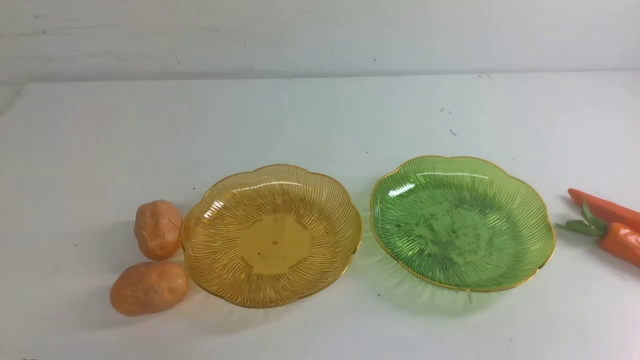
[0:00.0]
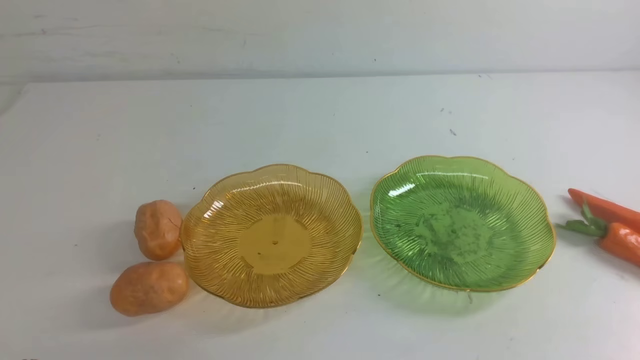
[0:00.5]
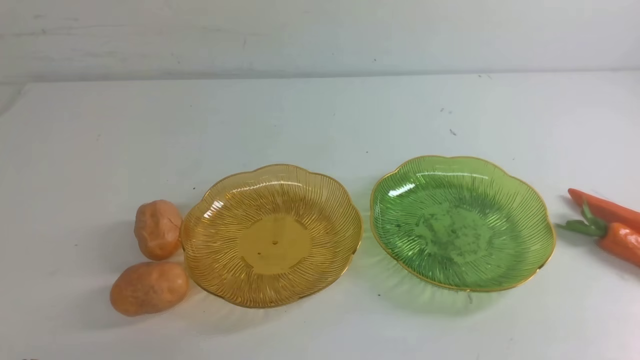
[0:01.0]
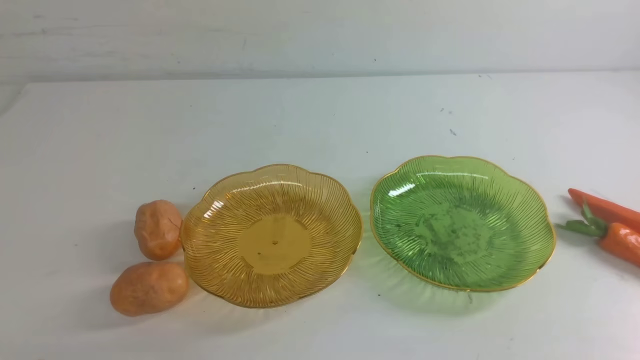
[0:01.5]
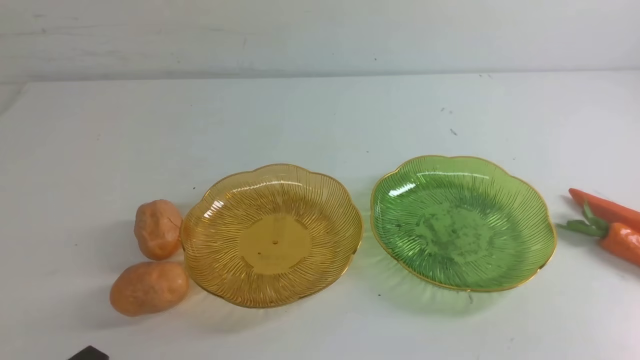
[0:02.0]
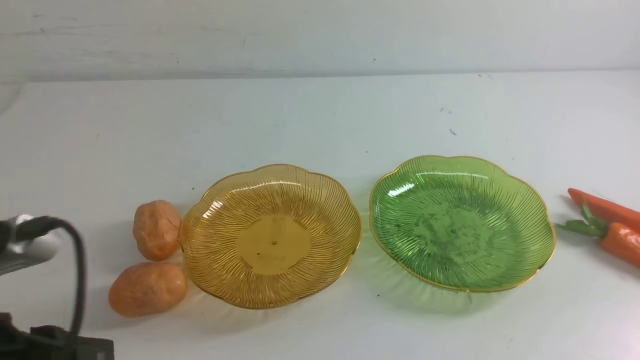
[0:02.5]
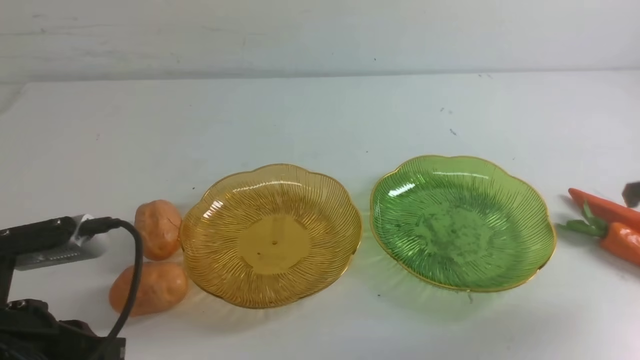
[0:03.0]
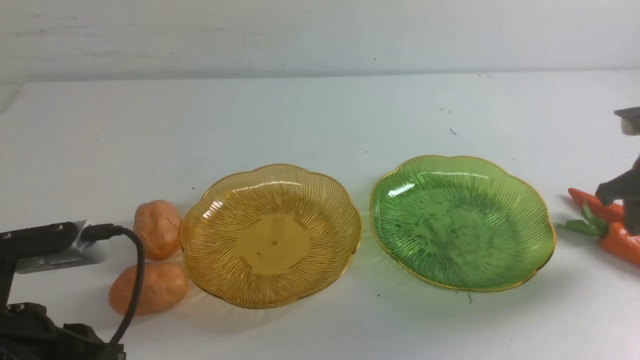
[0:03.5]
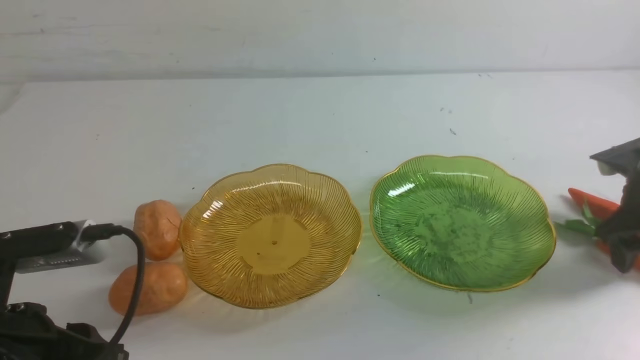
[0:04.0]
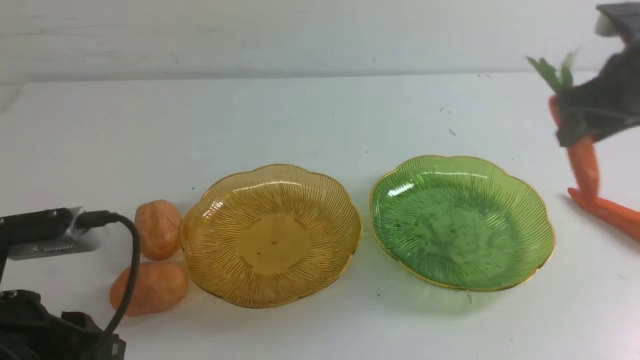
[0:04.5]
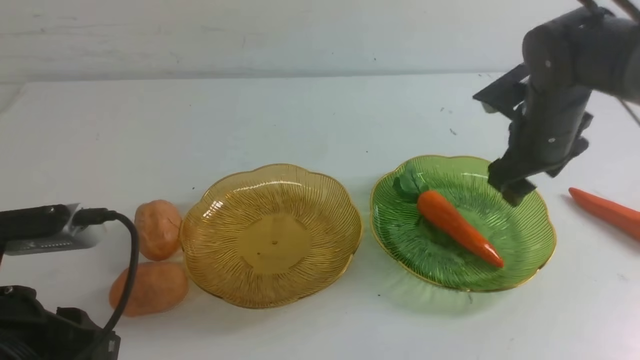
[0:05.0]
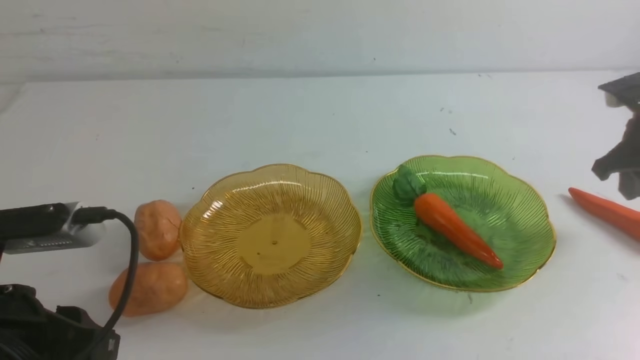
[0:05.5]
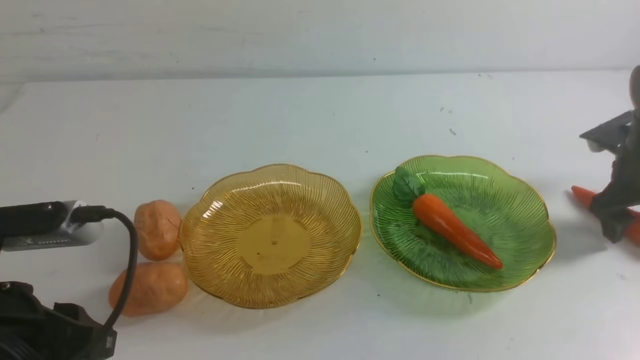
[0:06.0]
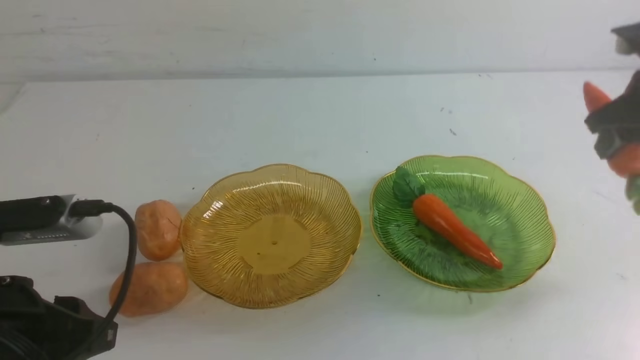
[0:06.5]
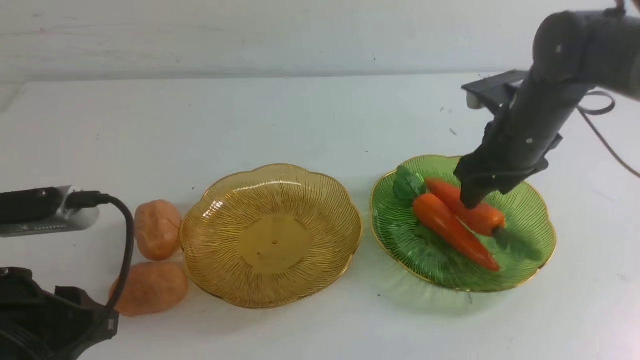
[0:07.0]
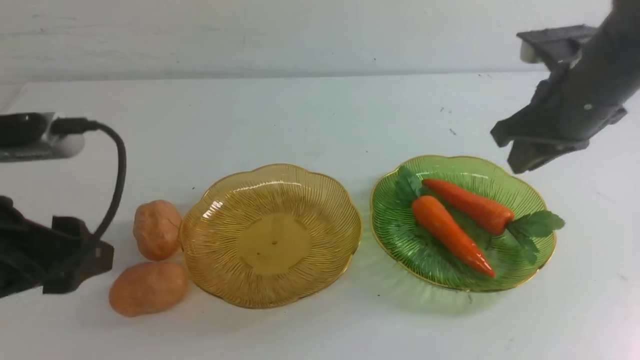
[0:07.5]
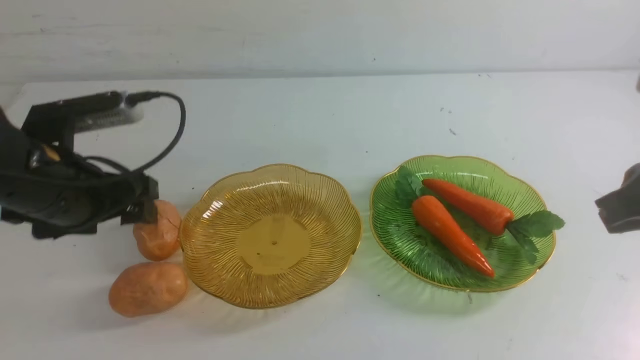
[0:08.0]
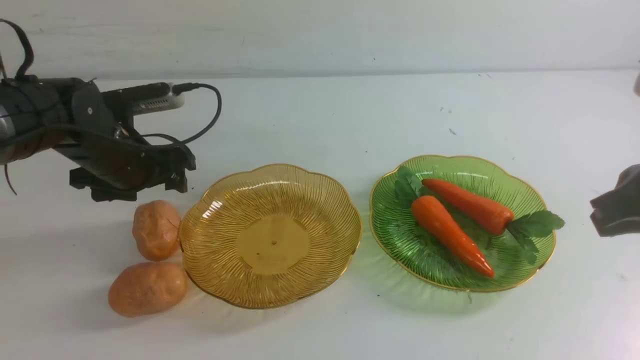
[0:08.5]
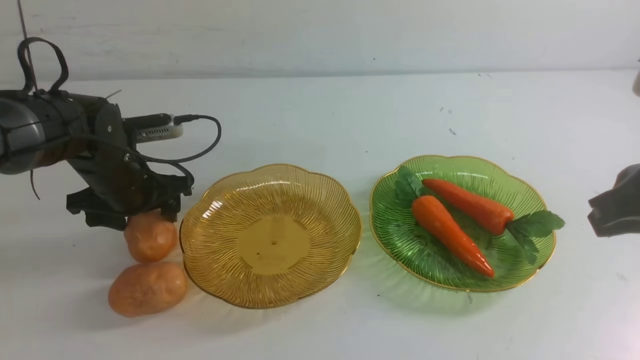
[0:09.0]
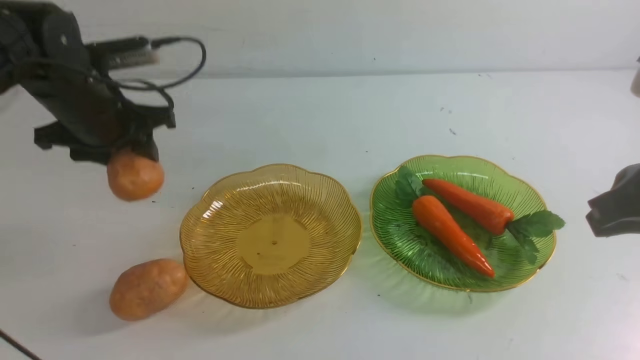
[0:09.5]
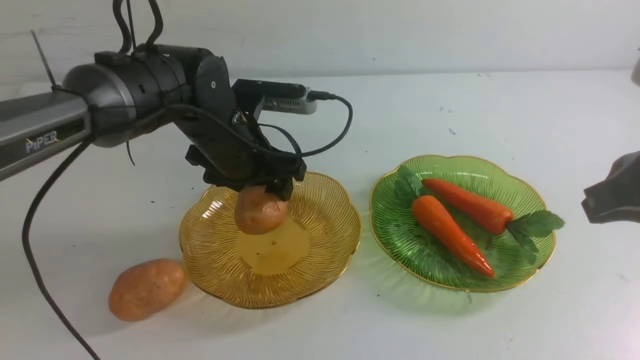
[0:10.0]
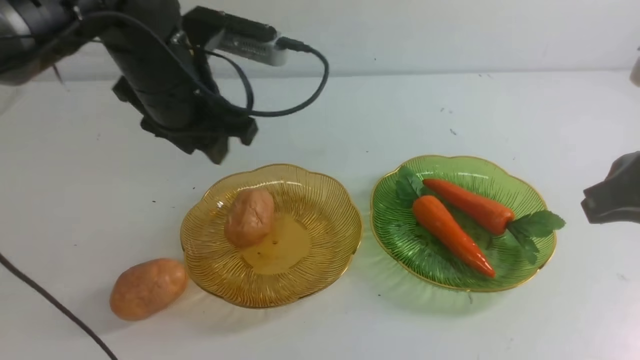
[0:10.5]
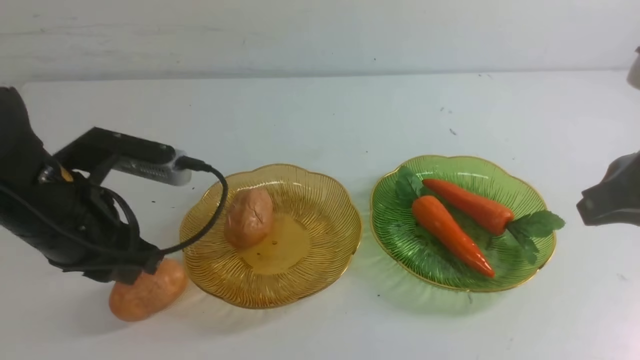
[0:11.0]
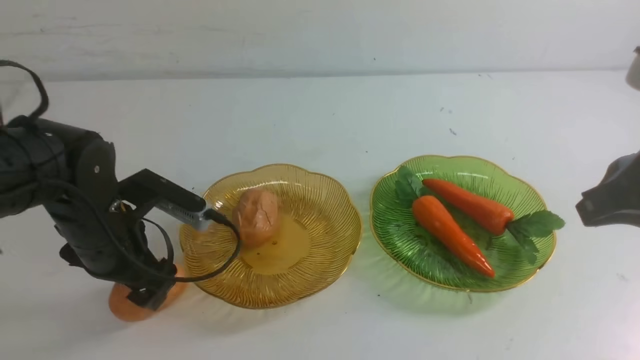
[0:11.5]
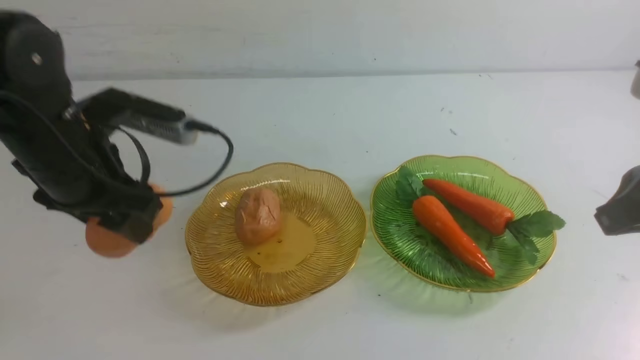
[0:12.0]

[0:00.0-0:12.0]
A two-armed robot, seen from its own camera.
Step, 0:00.0 to 0:05.0: use the right arm to grab a carrot and put it into the right plate.
Step, 0:05.5 to 0:07.0: use the right arm to grab a carrot and put it into the right plate.
Step, 0:07.5 to 0:10.0: Grab a potato with your left arm and put it on the left plate.
0:02.0 to 0:04.0: The left gripper heads forward, covering about 10 cm, and opens its fingers, while the right gripper heads forward, covering approximately 35 cm, and opens up.
0:04.0 to 0:06.0: The right gripper goes to the left and returns, some 10 cm each way, and closes and opens again.
0:06.0 to 0:08.0: The right gripper heads backward, upward and to the left, covering about 30 cm, and closes its fingers; the left gripper travels forward by approximately 20 cm, and opens up.
0:08.0 to 0:10.0: The left gripper heads to the right and forward, covering approximately 15 cm.
0:10.0 to 0:12.0: The left gripper swings up and down, some 10 cm each way, with 2 reversals.

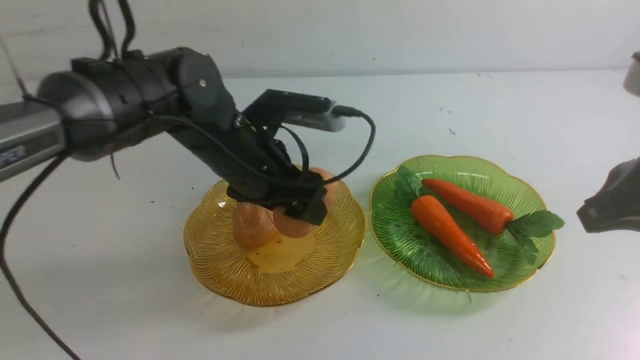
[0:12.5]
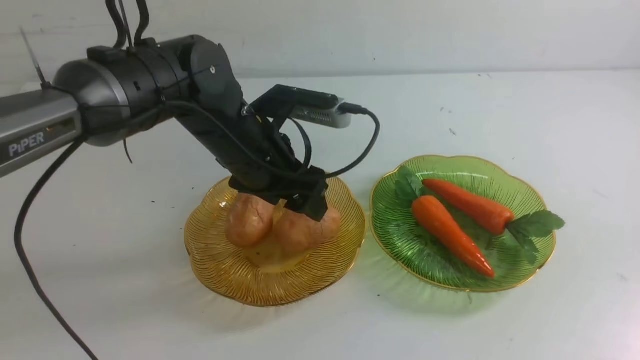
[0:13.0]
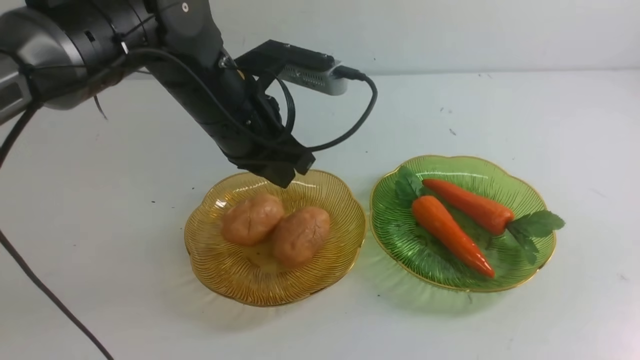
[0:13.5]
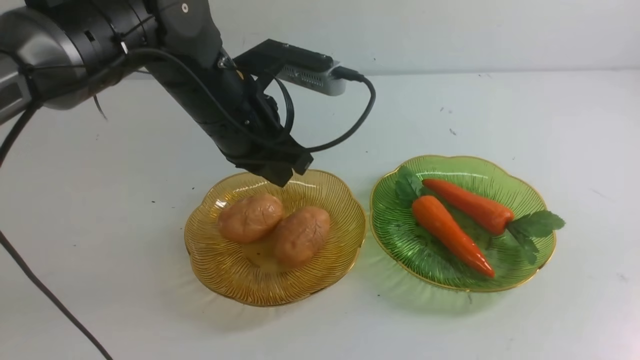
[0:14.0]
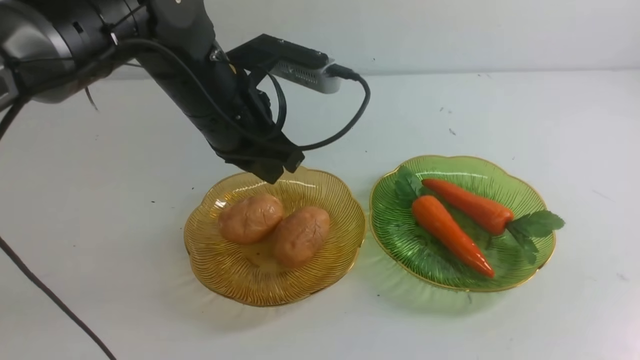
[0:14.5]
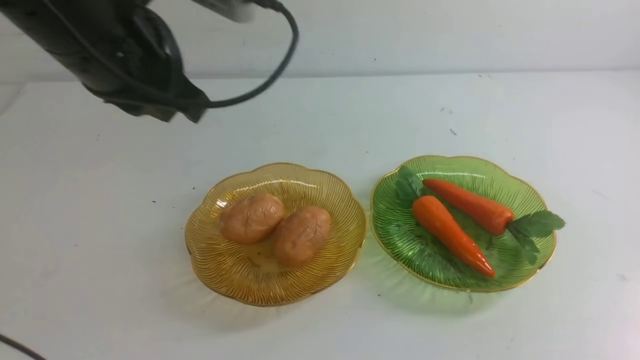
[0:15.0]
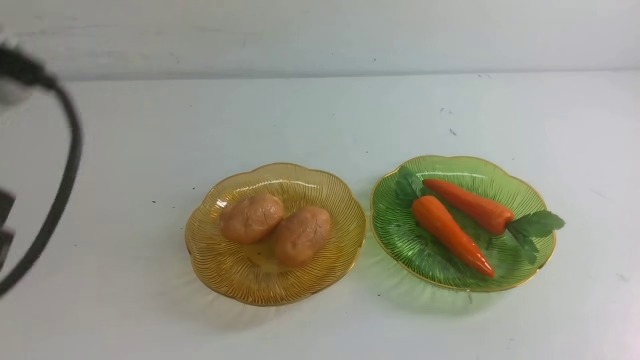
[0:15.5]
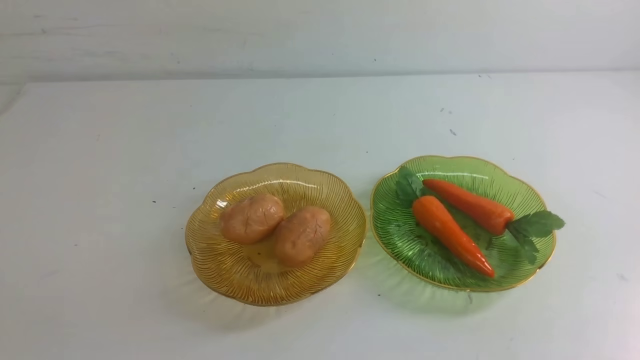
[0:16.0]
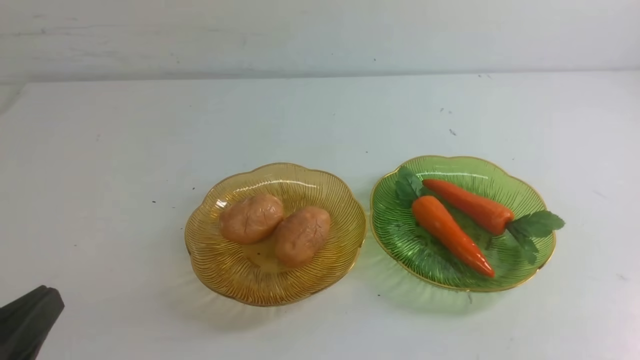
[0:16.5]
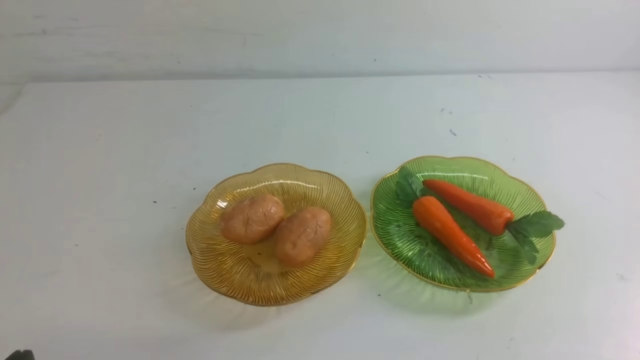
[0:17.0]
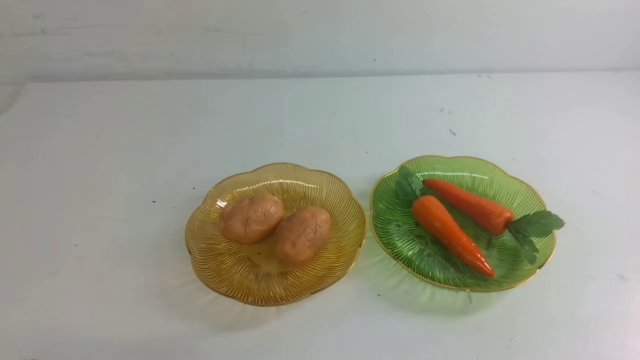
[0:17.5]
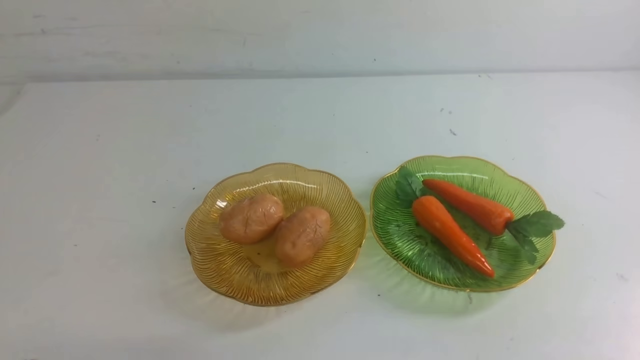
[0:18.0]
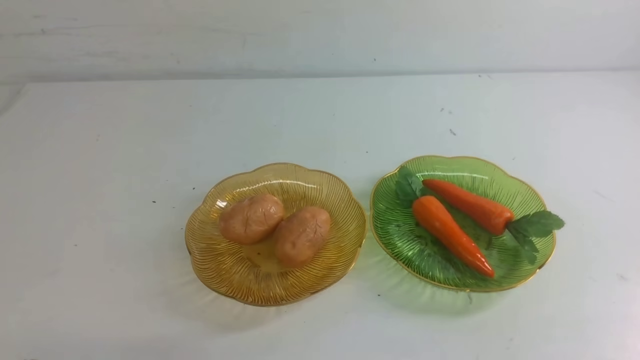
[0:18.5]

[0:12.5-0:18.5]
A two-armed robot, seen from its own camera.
0:12.5 to 0:14.5: The left gripper is displaced upward by roughly 10 cm, and closes. Meanwhile the right gripper shifts approximately 20 cm downward and backward.
0:14.5 to 0:16.5: The left gripper heads backward and to the left, covering approximately 30 cm.
0:16.5 to 0:18.5: The left gripper moves downward, roughly 10 cm.
